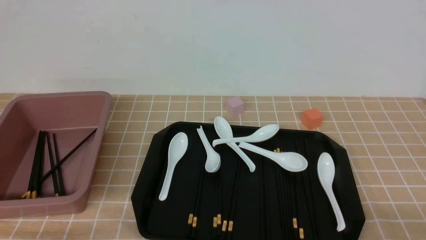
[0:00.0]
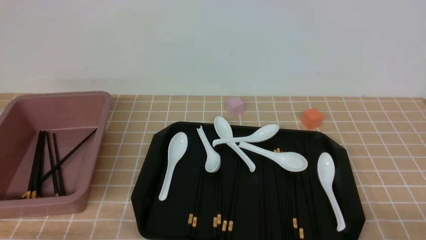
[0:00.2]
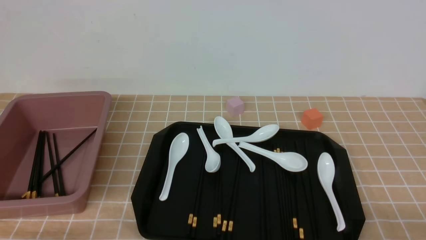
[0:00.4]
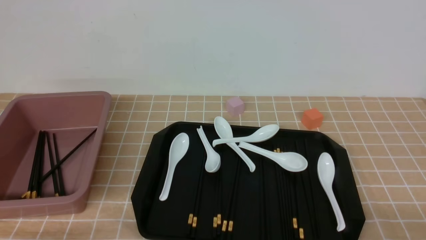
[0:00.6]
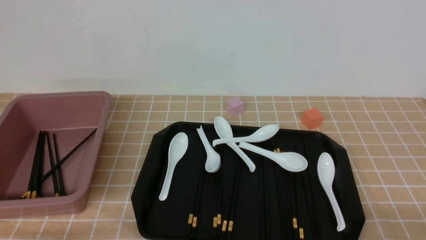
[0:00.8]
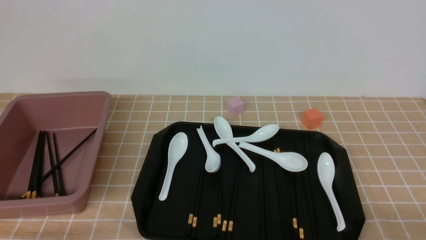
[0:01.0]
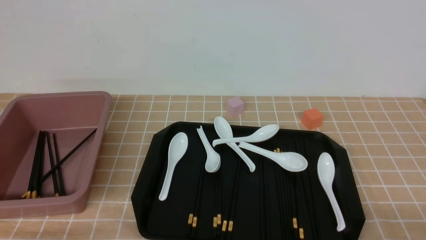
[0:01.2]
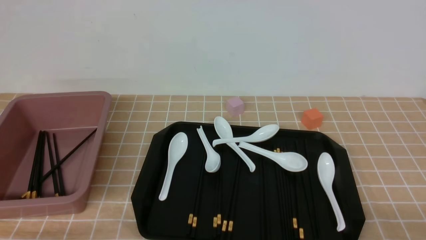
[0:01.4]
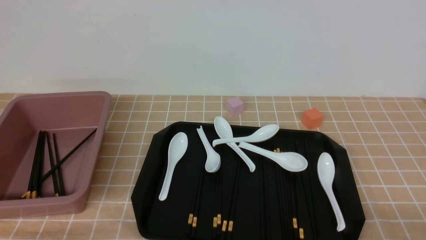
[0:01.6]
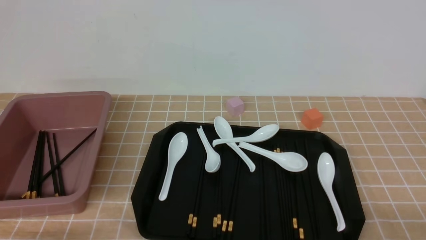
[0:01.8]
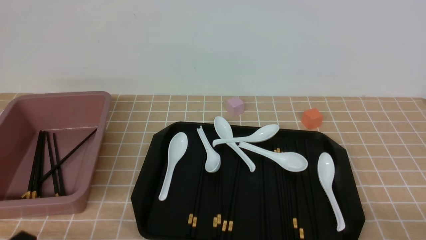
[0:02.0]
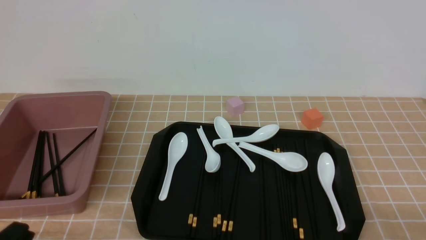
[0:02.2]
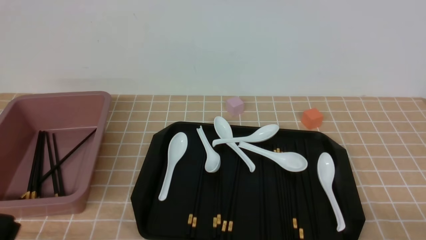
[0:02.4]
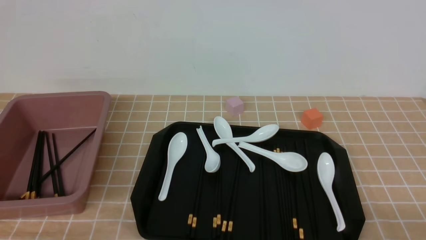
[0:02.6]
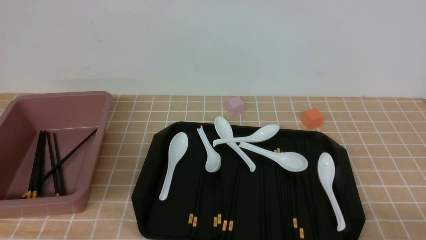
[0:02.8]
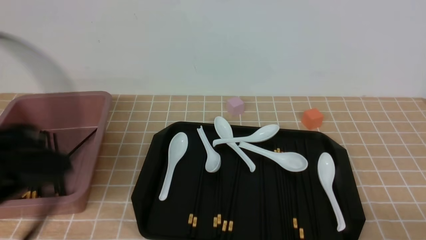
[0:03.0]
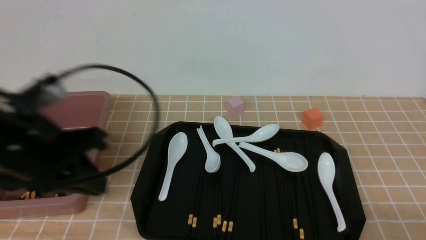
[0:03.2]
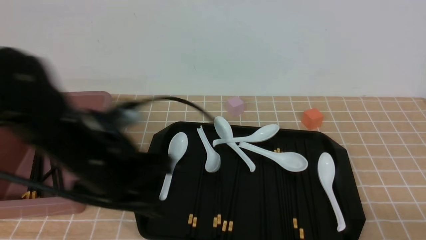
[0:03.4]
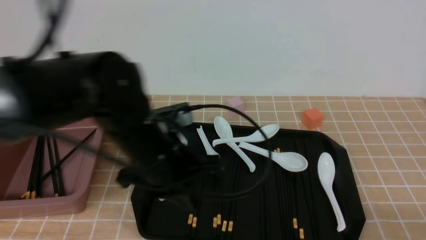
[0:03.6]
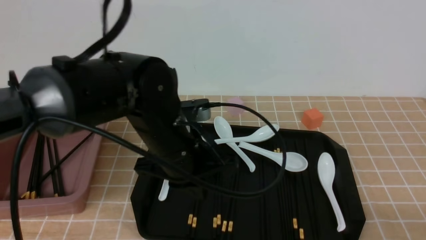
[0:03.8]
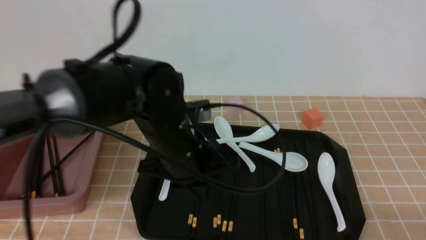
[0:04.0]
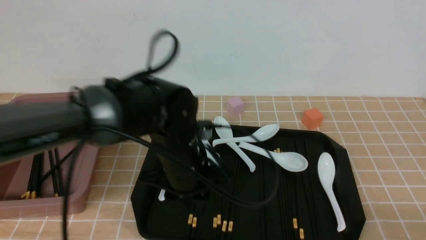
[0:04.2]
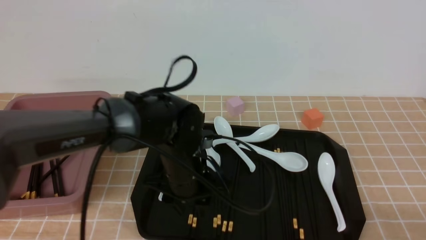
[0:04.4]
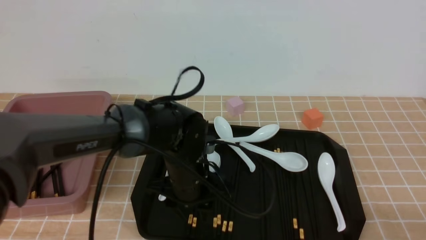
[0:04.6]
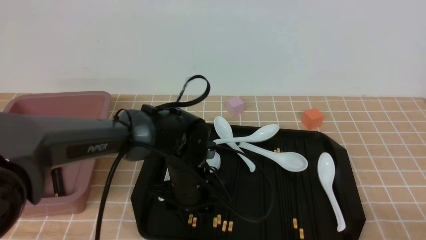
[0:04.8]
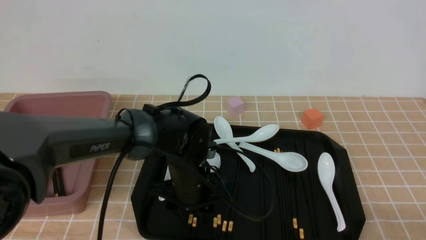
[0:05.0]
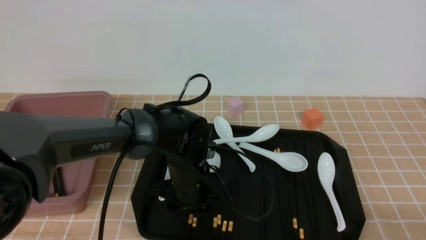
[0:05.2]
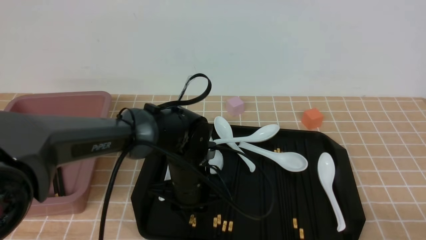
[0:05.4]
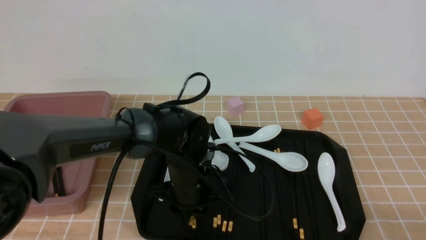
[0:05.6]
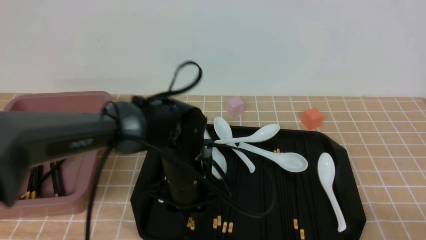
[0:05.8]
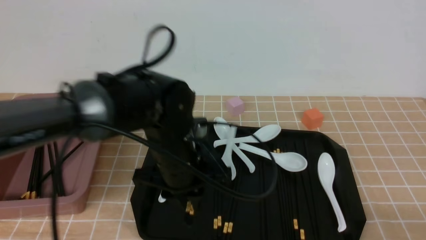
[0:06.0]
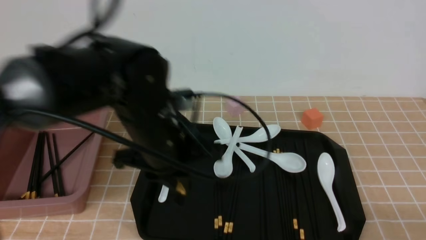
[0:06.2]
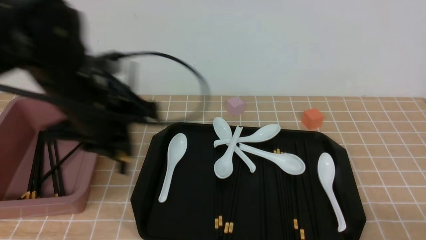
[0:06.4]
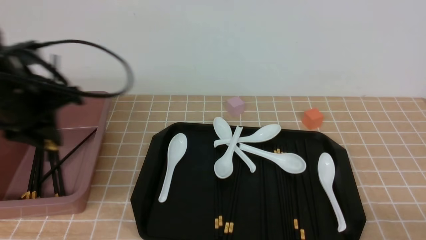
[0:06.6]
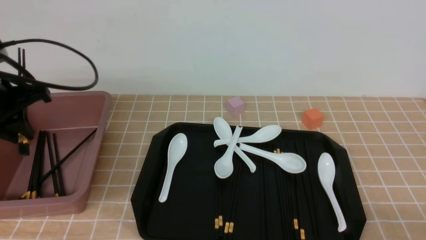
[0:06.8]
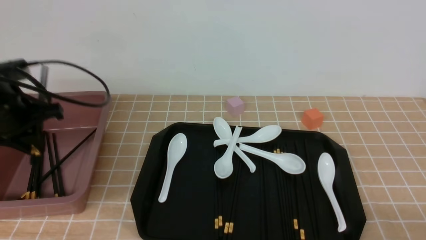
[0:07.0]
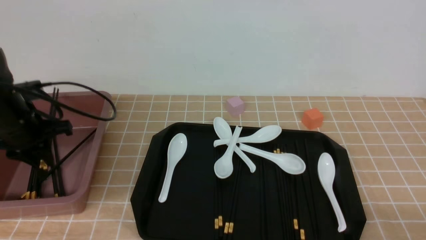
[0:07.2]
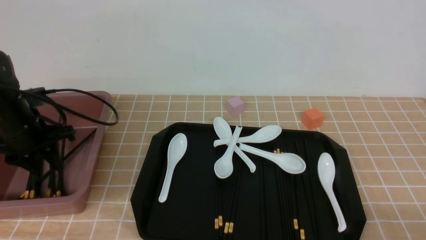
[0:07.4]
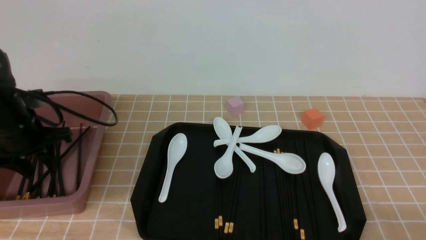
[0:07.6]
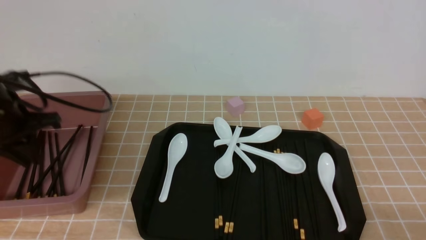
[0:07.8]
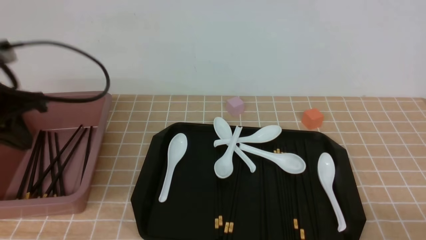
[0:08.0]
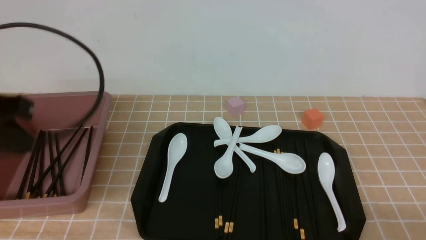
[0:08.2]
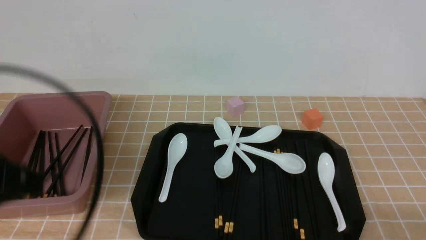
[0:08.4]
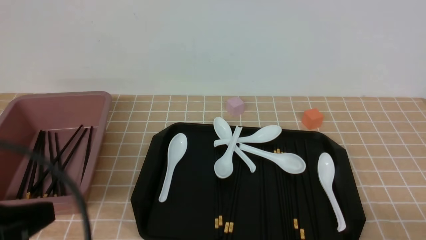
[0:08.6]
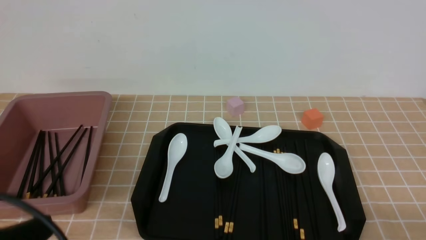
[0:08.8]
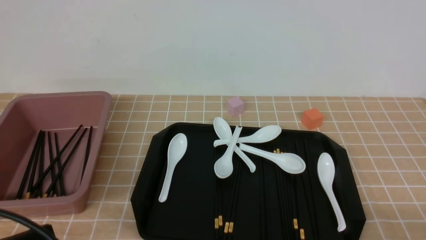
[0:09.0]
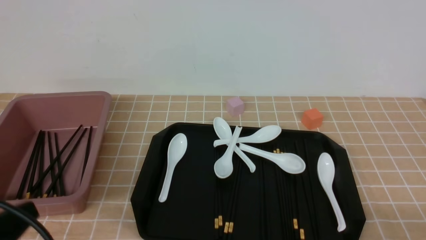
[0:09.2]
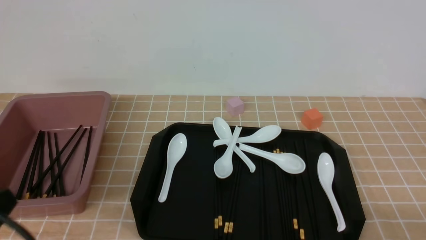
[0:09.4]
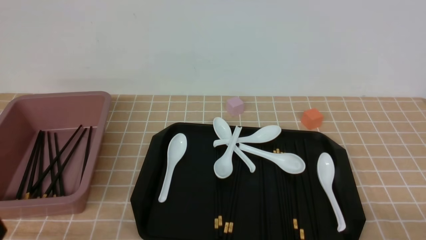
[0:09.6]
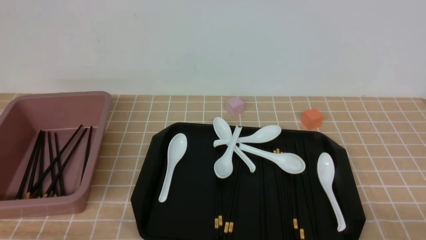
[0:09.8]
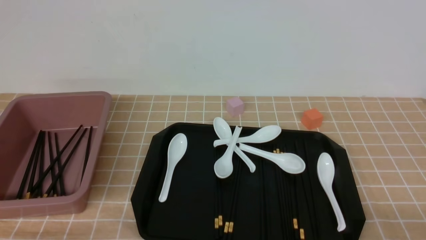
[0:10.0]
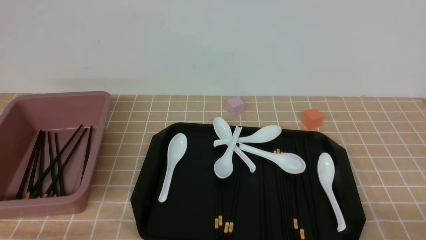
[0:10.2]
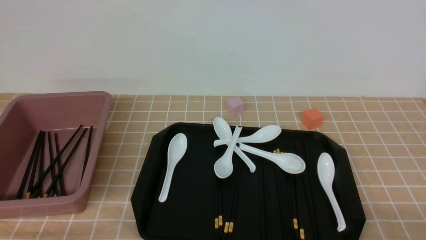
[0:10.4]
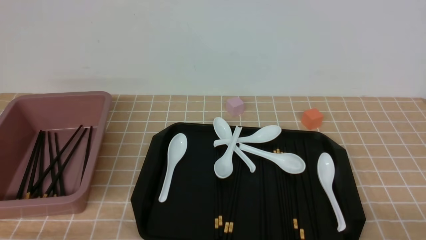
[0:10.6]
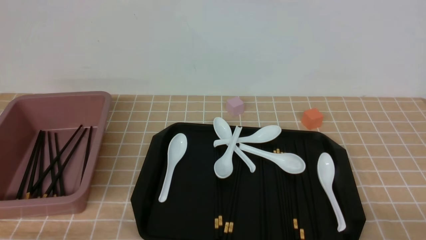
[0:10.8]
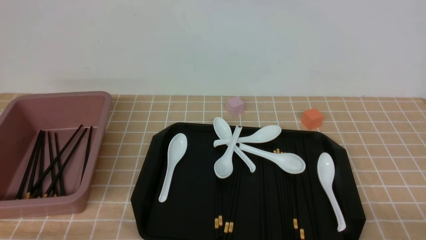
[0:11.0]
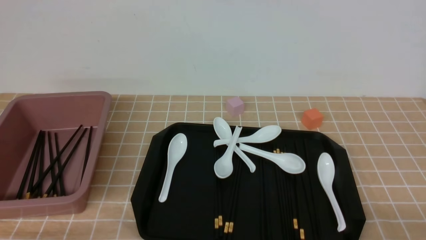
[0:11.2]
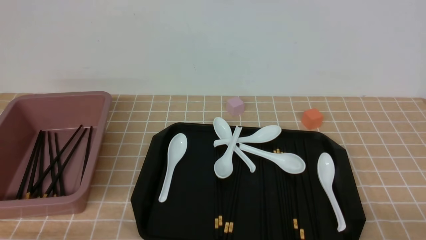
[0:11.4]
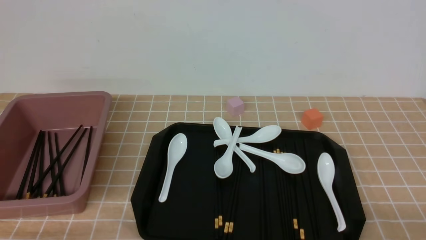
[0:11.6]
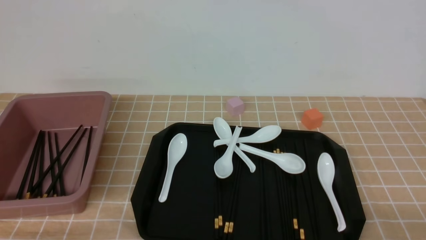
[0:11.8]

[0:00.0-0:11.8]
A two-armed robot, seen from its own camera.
Step, 0:00.0 to 0:05.8: use the left arm to grab a pair of chopsticks.
Step, 0:06.2 to 0:07.6: use the left arm to put the chopsticks into the lunch box.
0:00.0 to 0:01.4: The two grippers keep their place.
0:01.4 to 0:03.0: The left gripper travels upward and forward by about 20 cm.
0:03.0 to 0:04.4: The left gripper moves to the right, downward and forward, roughly 30 cm, and opens up.
0:04.4 to 0:06.0: The left gripper heads upward, covering roughly 5 cm, and closes up.
0:06.0 to 0:07.4: The left gripper shifts about 25 cm to the left, and opens.
0:07.4 to 0:08.8: The left gripper heads backward, covering about 30 cm, and closes.
0:08.8 to 0:10.4: The left gripper moves downward, approximately 10 cm.
0:10.4 to 0:11.8: Both grippers stay put.
